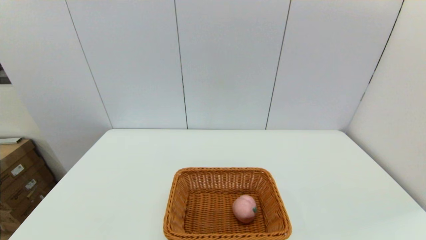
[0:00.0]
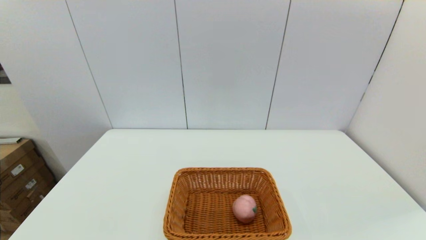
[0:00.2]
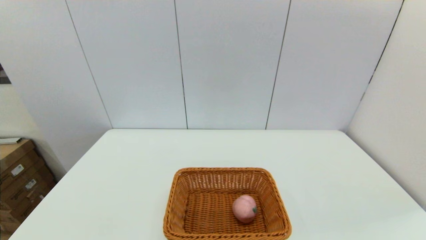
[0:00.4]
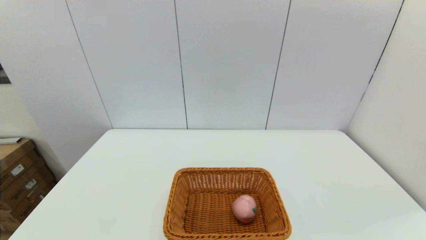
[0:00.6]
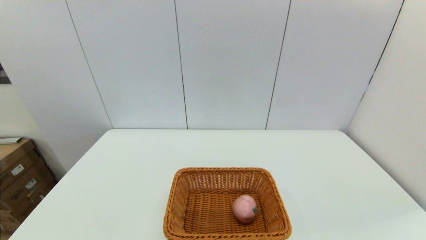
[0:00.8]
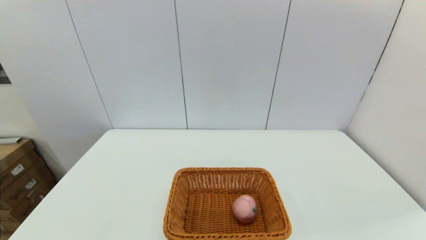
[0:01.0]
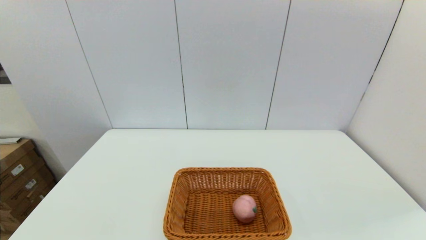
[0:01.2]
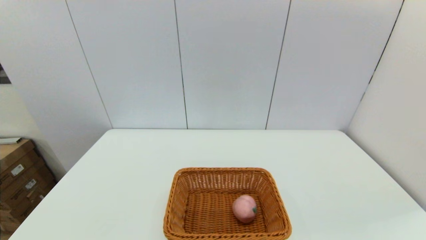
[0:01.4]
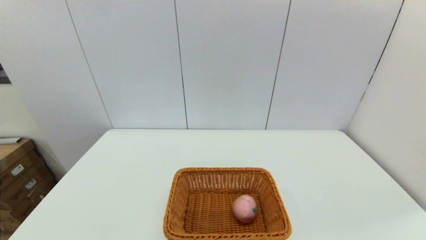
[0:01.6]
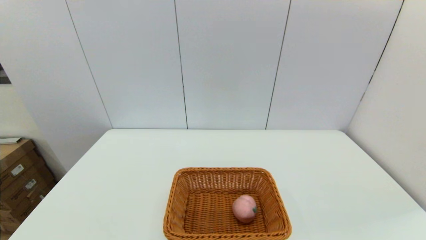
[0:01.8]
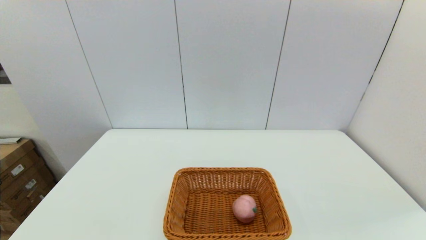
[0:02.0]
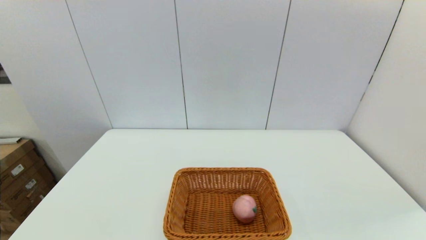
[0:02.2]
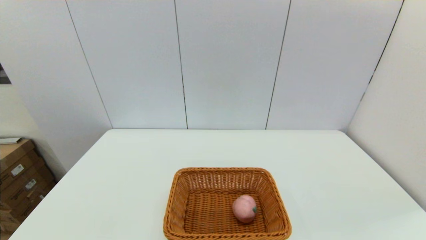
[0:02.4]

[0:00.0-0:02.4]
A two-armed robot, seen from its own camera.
0:01.2 to 0:02.4: Neither gripper changes place.

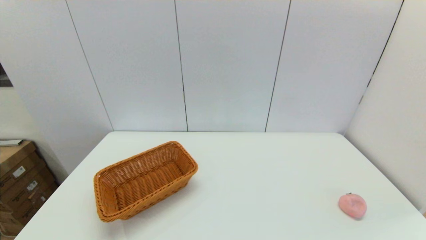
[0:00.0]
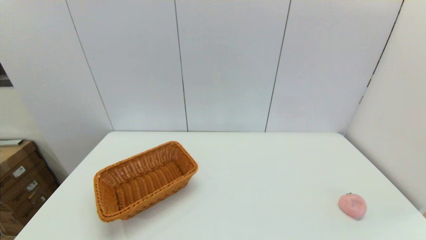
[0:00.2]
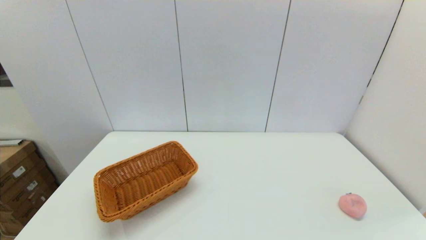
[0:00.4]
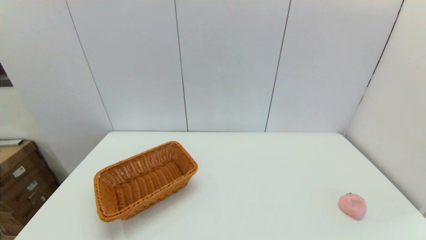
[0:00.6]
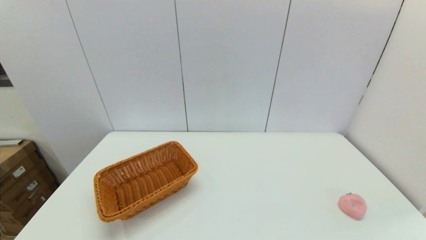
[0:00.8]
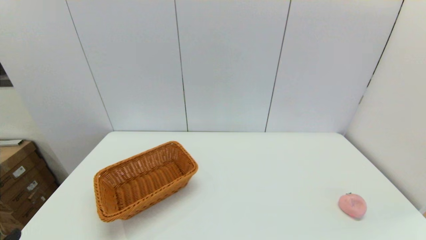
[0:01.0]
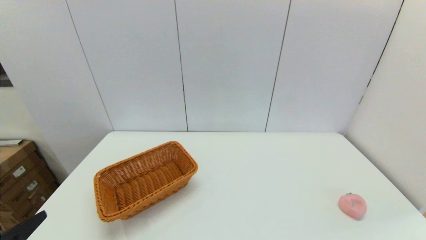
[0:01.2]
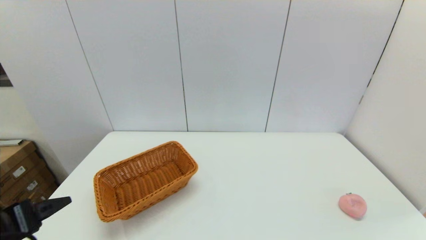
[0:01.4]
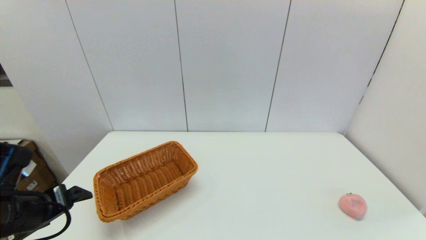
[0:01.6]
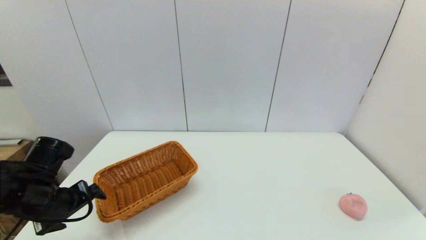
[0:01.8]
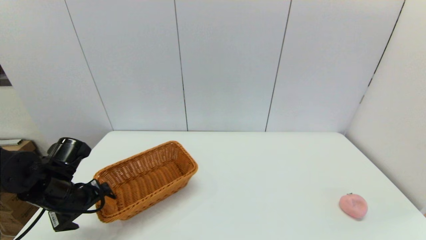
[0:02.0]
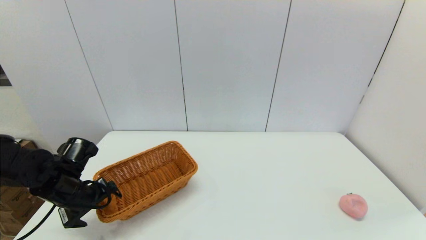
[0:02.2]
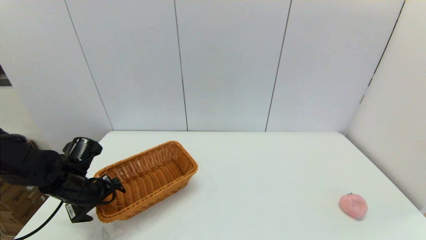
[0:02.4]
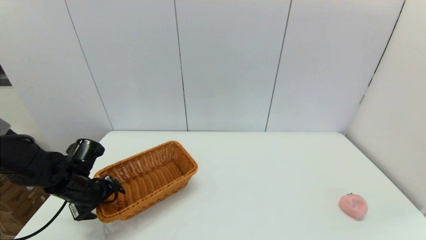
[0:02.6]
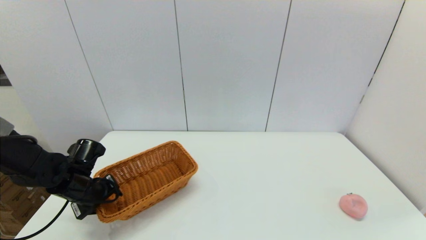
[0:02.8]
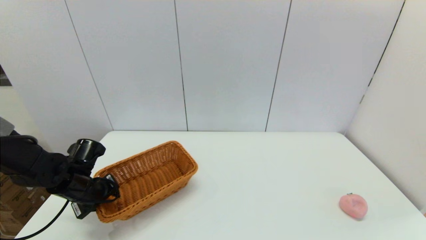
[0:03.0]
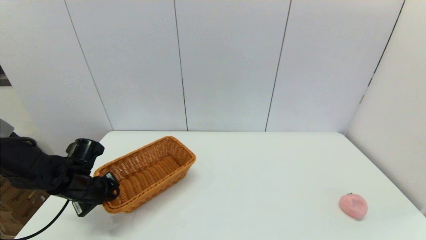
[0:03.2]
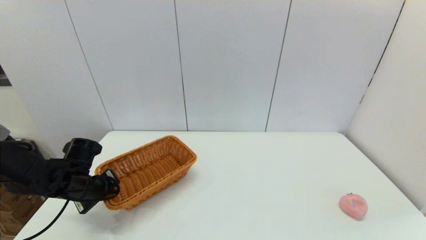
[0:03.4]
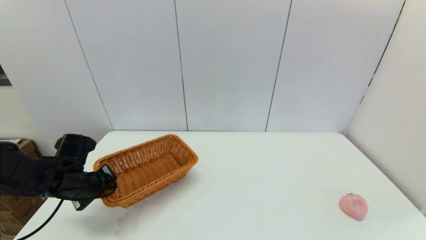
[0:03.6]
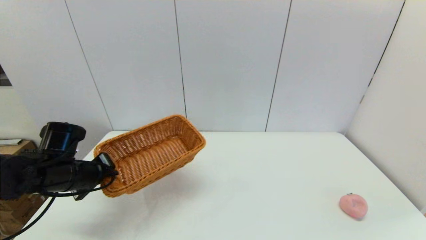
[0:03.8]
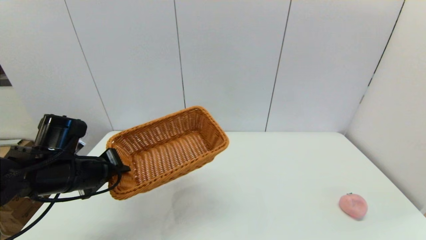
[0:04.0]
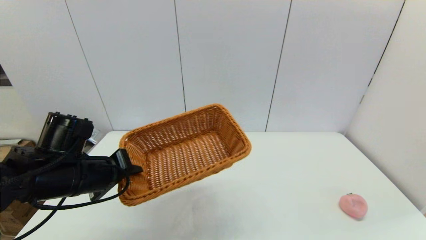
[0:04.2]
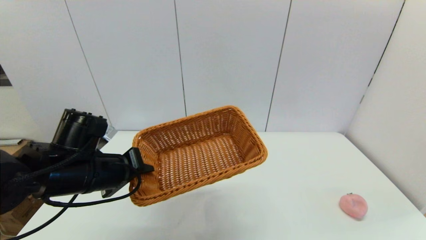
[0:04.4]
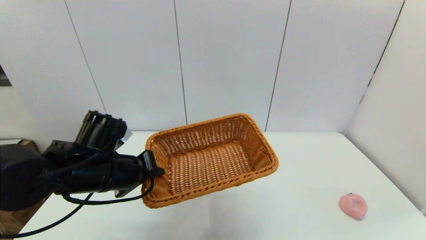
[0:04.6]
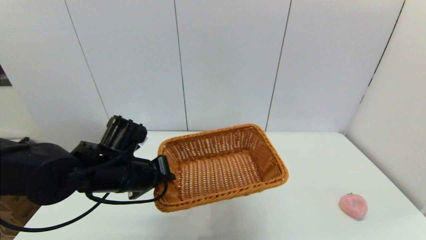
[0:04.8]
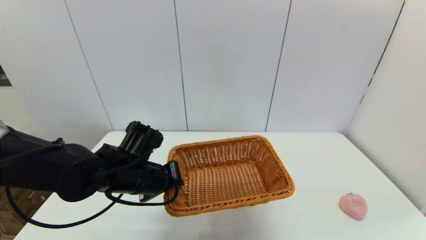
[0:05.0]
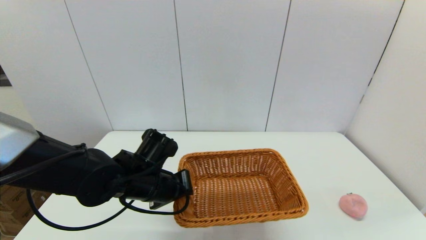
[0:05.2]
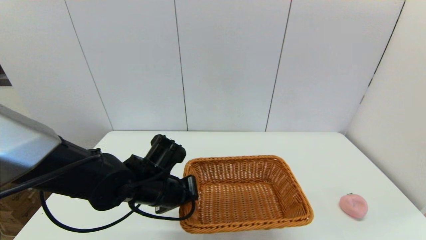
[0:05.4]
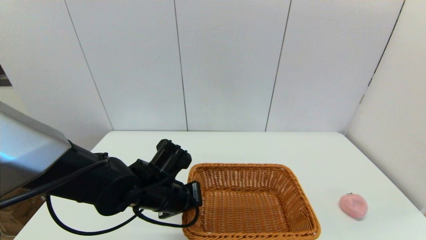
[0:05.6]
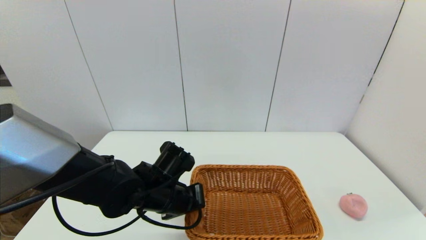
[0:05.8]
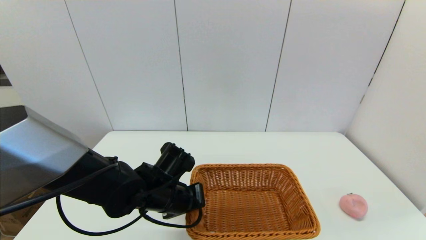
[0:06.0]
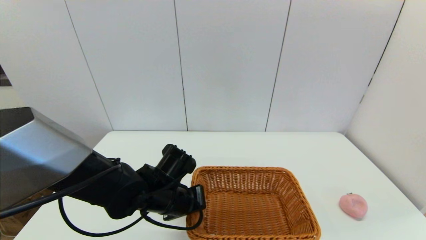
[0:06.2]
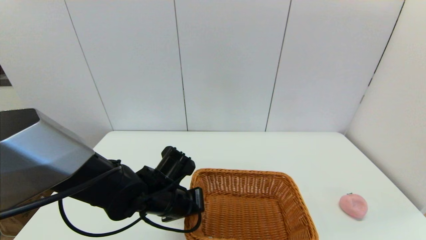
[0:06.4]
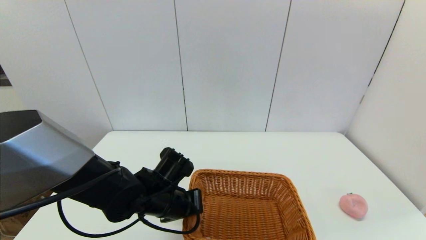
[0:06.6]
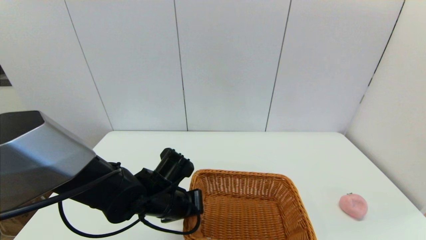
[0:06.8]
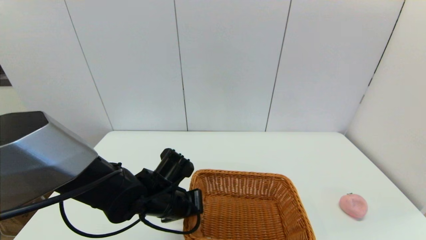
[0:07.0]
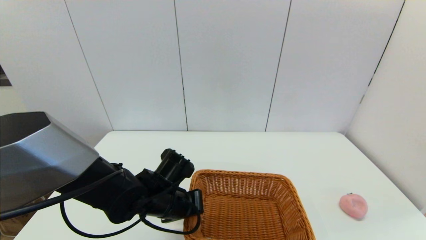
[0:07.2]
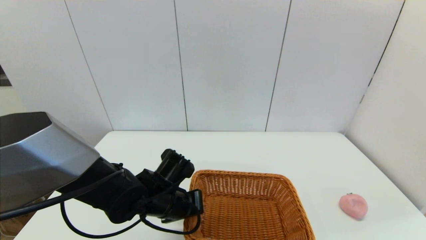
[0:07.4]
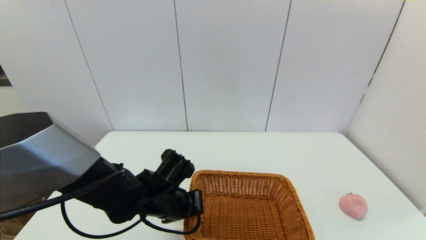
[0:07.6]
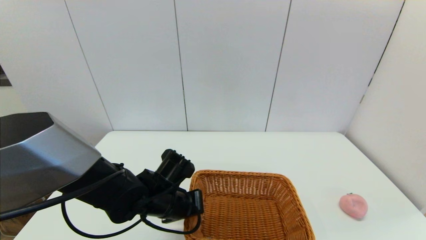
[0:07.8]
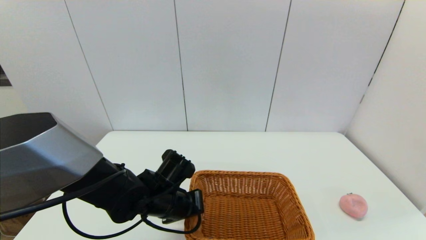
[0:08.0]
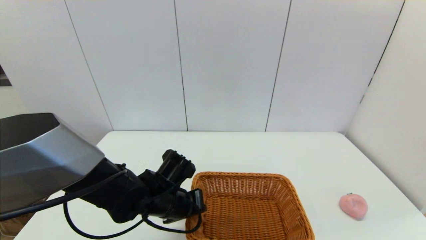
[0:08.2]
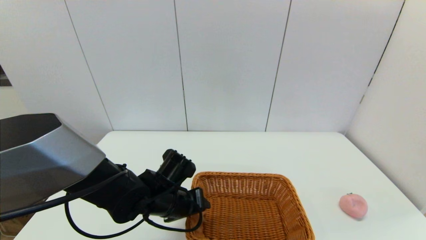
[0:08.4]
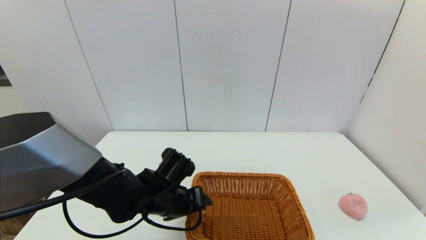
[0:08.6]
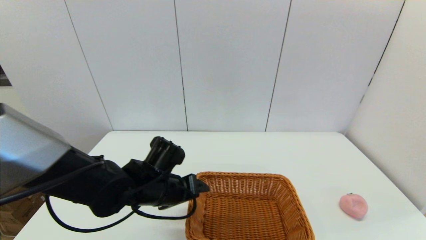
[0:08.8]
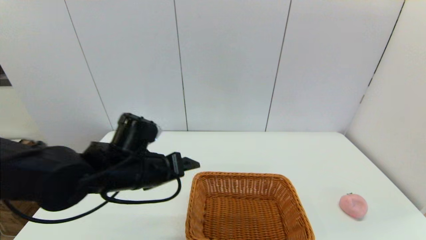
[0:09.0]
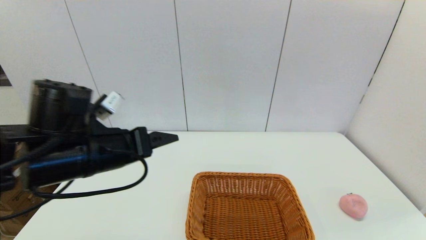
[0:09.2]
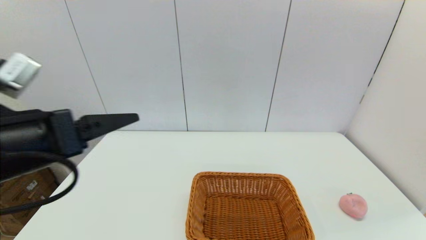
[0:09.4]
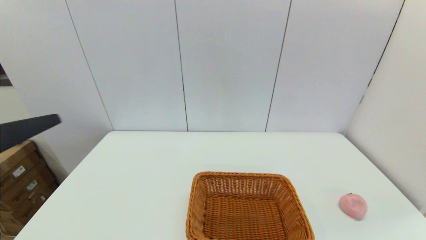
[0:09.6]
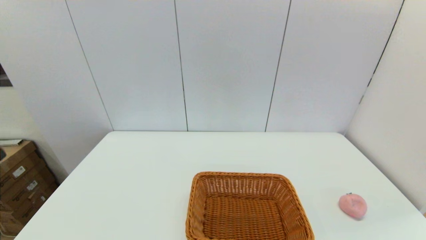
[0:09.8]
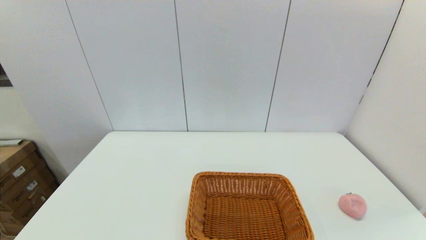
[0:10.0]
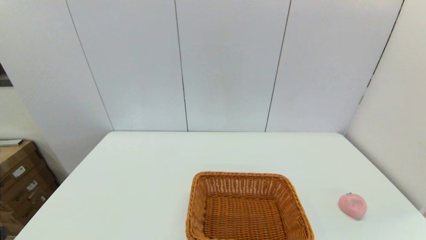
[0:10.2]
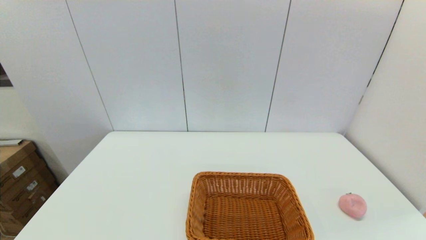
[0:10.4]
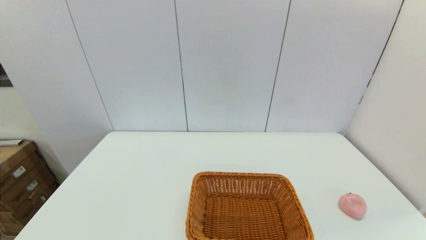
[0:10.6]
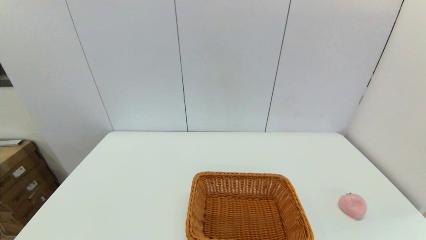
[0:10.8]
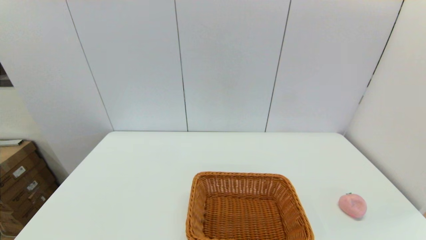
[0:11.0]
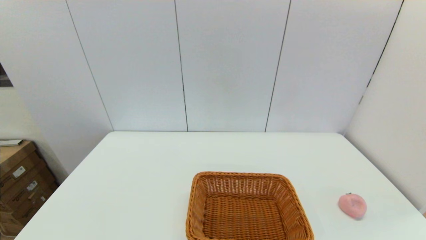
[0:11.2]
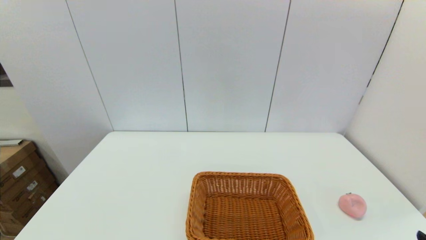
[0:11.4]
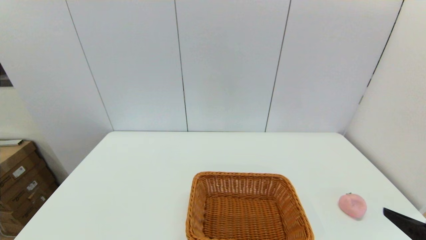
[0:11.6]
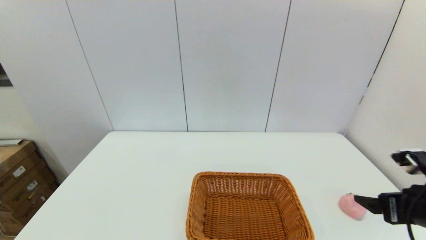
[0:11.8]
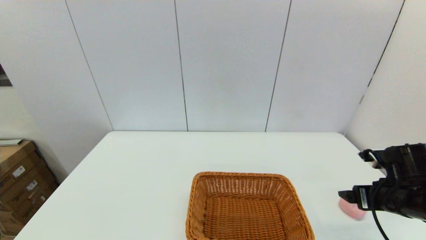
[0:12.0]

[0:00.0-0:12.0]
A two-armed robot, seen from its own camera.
Step, 0:00.0 to 0:03.0: Grasp the light basket with the left gripper.
Step, 0:03.4 to 0:08.4: Place the light basket on the middle of the table with the left gripper.
0:00.0 to 0:01.6: The left gripper shifts about 20 cm forward.
0:01.6 to 0:03.0: The left gripper heads forward and downward, covering some 15 cm, and closes up.
0:03.0 to 0:04.4: The left gripper shifts roughly 15 cm upward, to the right and backward.
0:04.4 to 0:06.0: The left gripper is displaced to the right and downward by about 15 cm.
0:06.0 to 0:07.6: The grippers make only small movements.
0:07.6 to 0:09.0: The left gripper goes approximately 10 cm upward, and opens.
0:09.0 to 0:10.4: The left gripper shifts approximately 30 cm backward and to the left.
0:10.4 to 0:12.0: The right gripper goes approximately 25 cm forward.

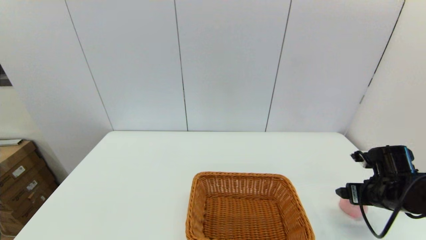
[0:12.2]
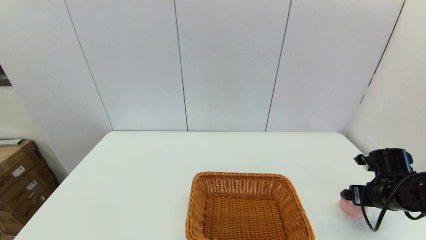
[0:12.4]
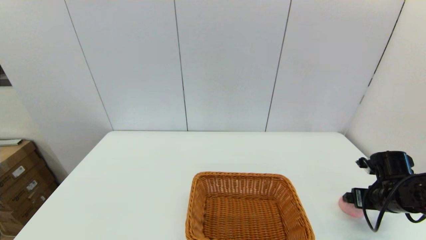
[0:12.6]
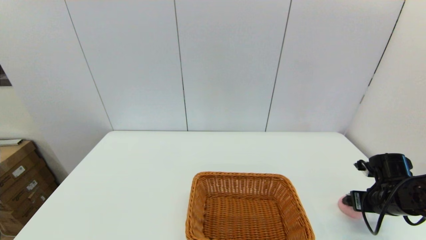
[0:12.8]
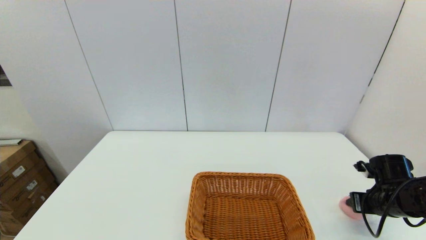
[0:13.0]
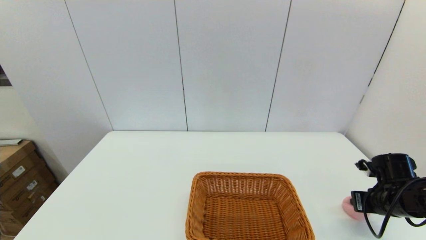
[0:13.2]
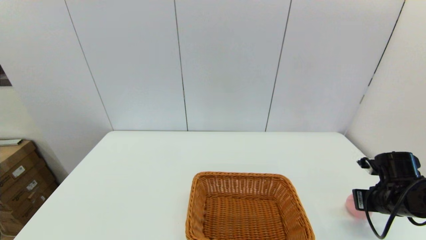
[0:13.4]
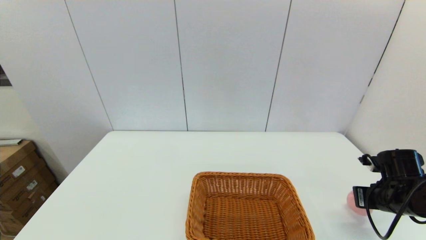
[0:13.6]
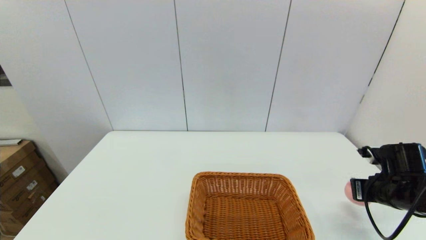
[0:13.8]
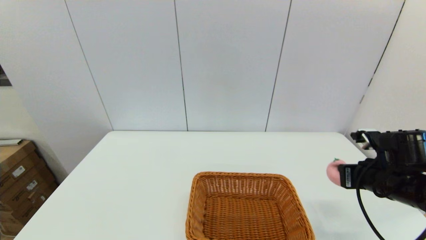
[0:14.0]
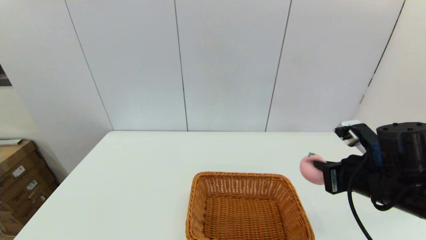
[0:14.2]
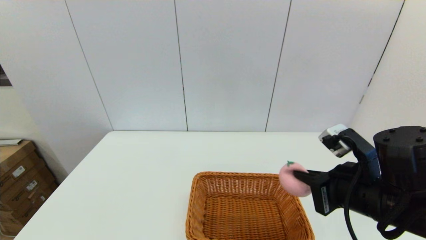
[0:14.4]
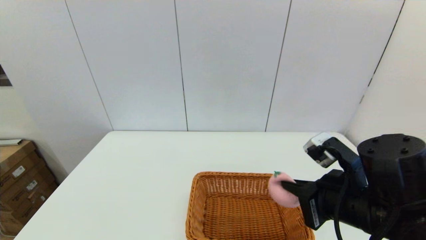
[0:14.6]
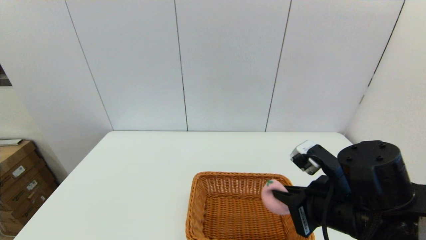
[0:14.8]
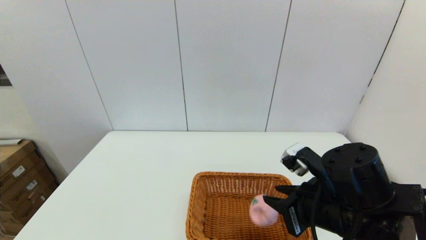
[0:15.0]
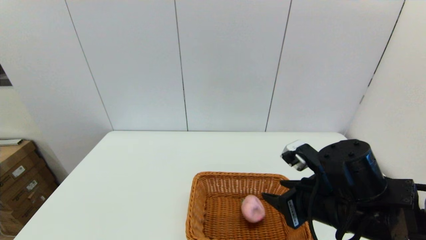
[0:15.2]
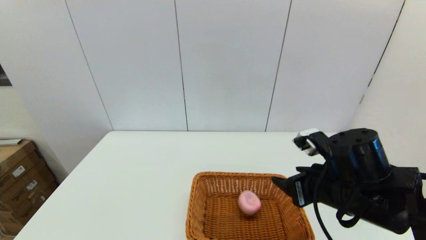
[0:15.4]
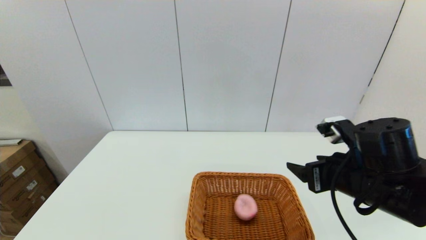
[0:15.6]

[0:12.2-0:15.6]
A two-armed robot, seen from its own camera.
Step, 0:13.4 to 0:15.2: Place the peach into the light basket with the right gripper.
0:12.2 to 0:13.8: The right gripper closes its fingers.
0:13.8 to 0:15.6: The right gripper goes some 15 cm to the left and upward, and opens up.
